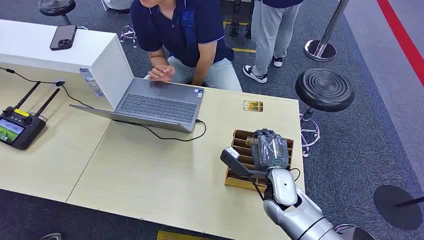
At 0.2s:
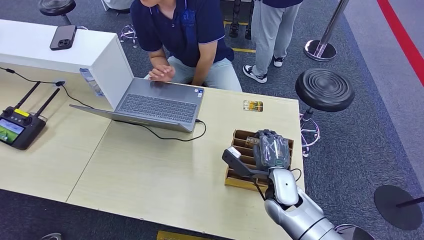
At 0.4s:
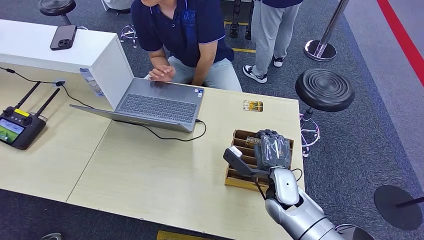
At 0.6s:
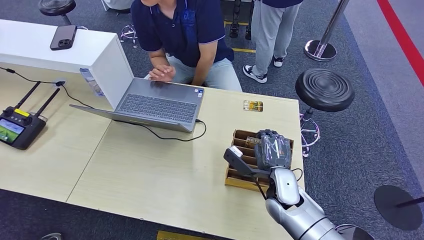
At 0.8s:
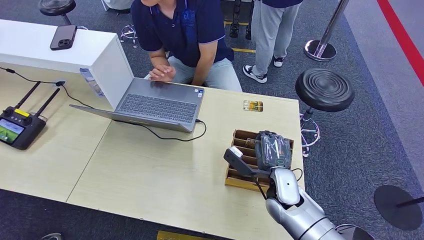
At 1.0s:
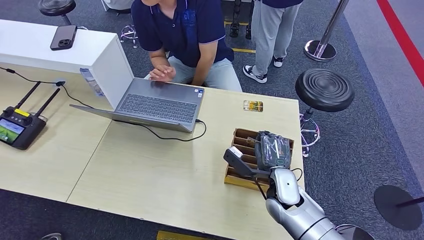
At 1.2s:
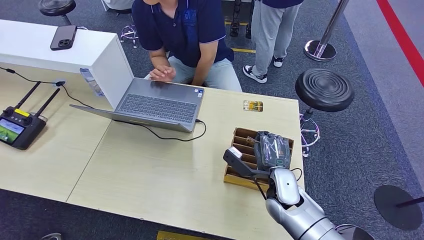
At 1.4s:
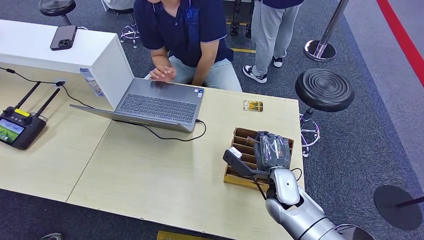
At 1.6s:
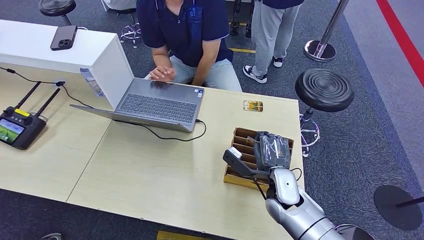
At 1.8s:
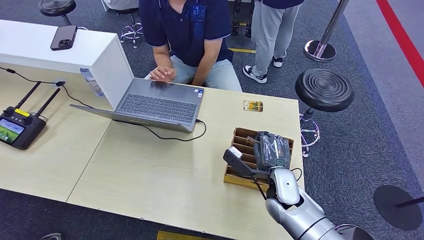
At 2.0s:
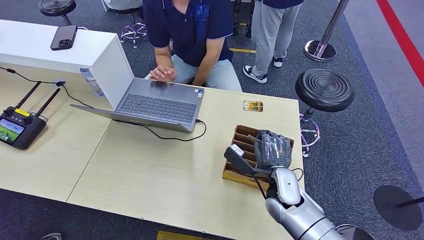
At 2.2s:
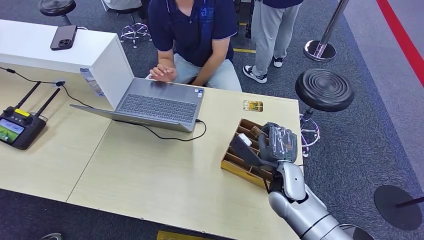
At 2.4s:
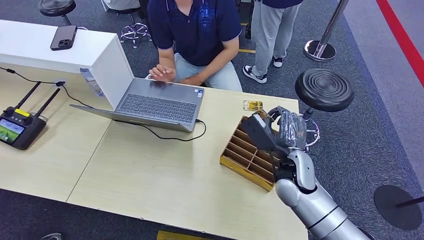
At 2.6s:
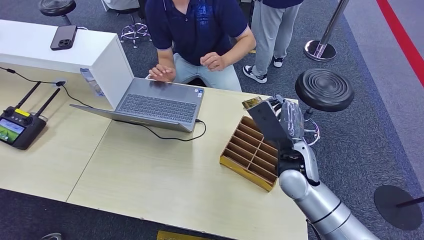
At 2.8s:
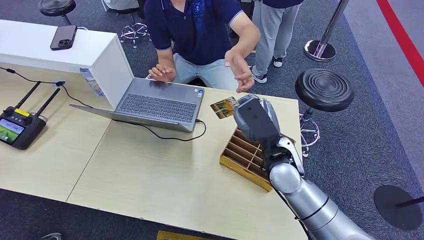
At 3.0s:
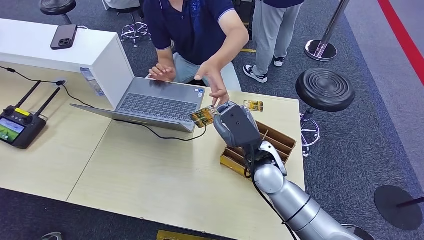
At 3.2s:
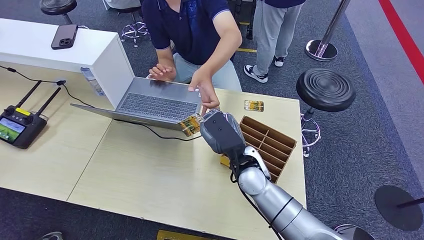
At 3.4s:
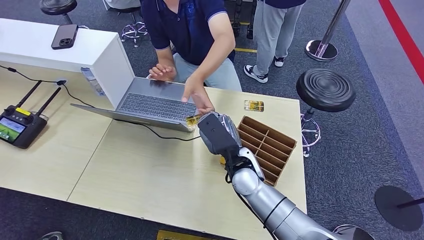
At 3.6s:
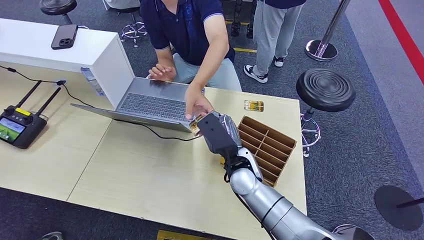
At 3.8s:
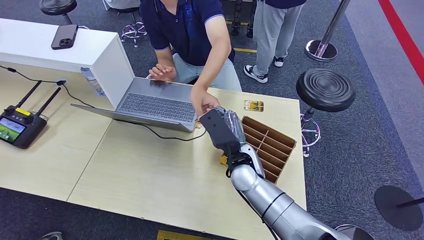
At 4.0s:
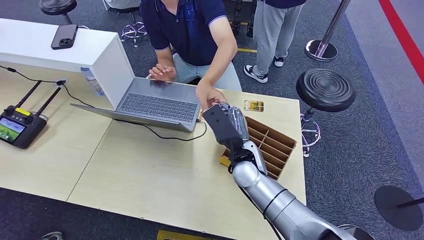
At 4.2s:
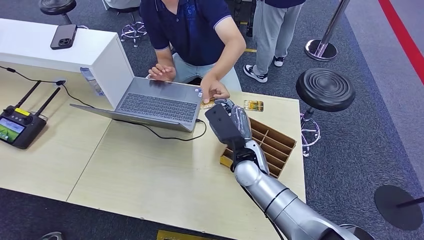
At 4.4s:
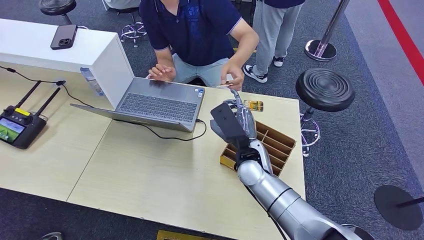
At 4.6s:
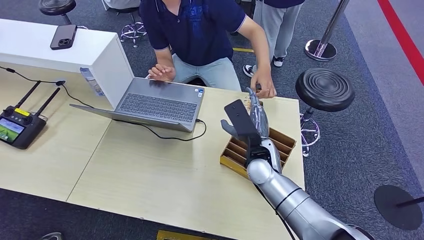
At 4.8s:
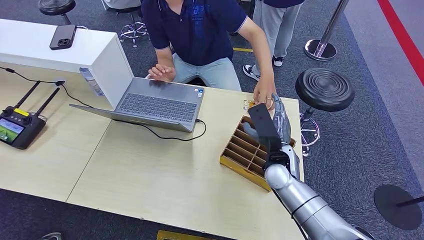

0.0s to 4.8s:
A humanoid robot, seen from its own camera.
Step, 0.0s to 2.6s: Pick up the room card from the card holder.
Step, 2.8s to 4.8s: Hand the room card to the target.
1.6s to 3.2s: The right hand goes roughly 10 cm to the left and upward.
3.2s to 4.8s: The right hand heads to the right, covering some 10 cm.

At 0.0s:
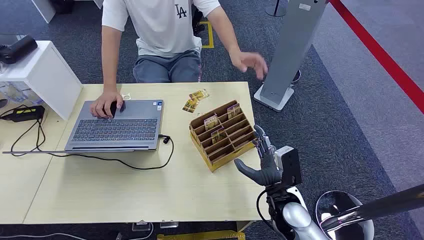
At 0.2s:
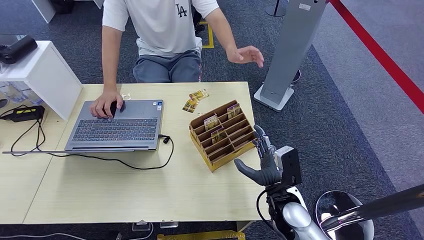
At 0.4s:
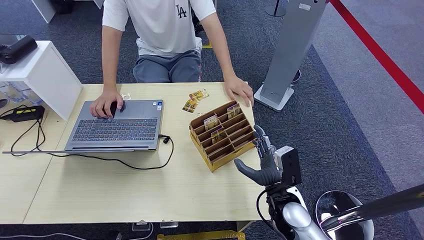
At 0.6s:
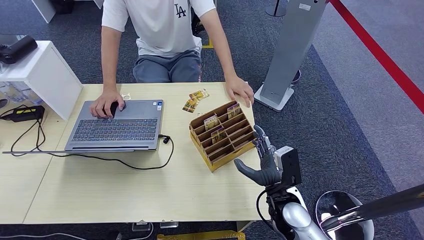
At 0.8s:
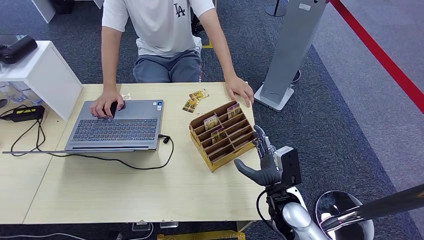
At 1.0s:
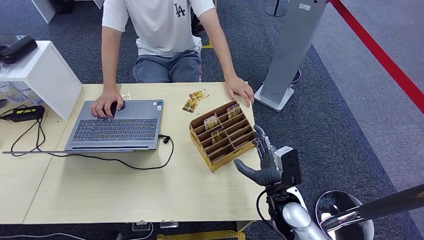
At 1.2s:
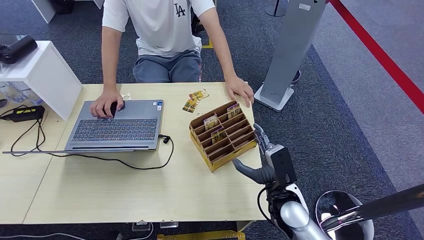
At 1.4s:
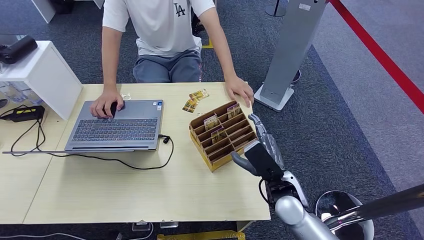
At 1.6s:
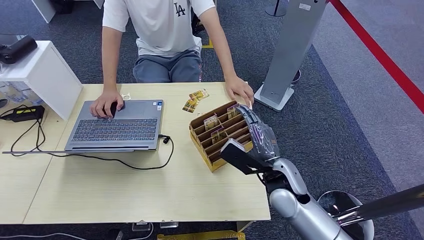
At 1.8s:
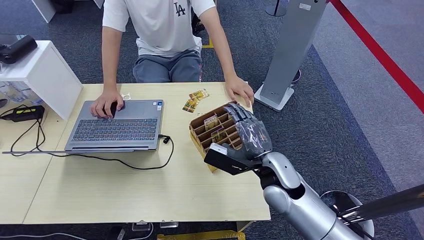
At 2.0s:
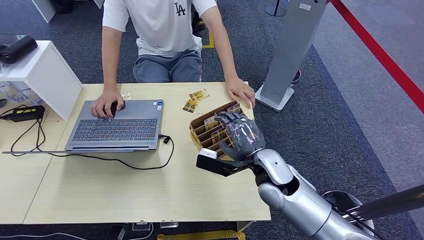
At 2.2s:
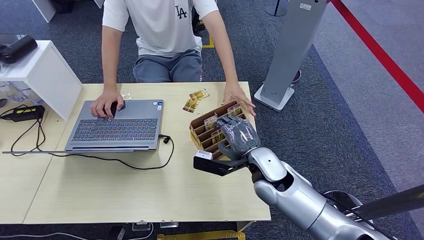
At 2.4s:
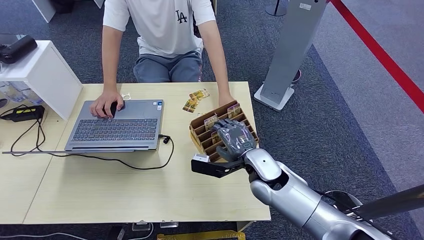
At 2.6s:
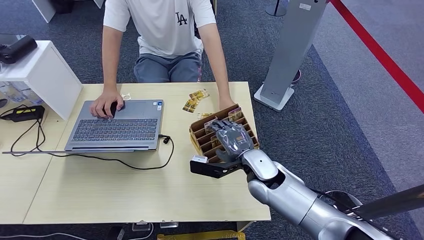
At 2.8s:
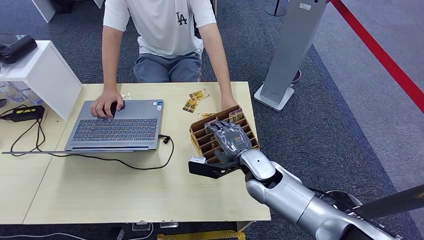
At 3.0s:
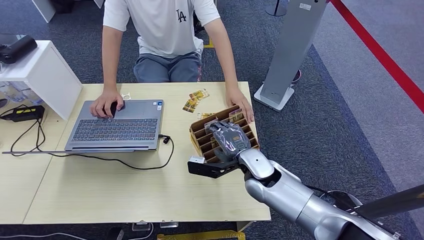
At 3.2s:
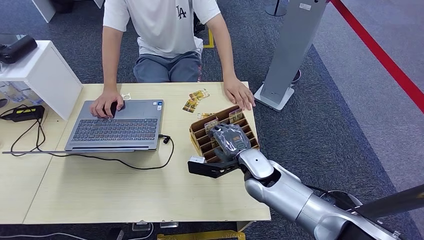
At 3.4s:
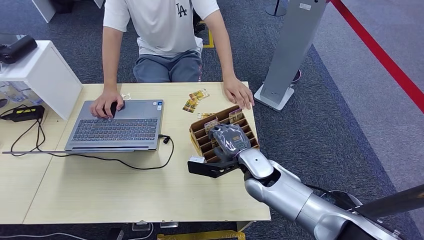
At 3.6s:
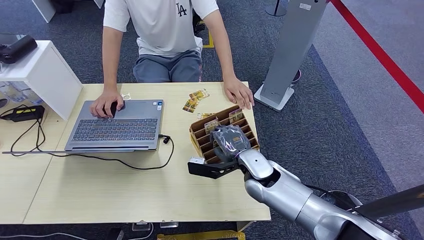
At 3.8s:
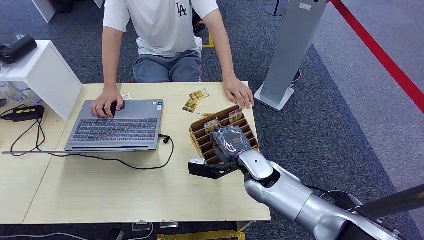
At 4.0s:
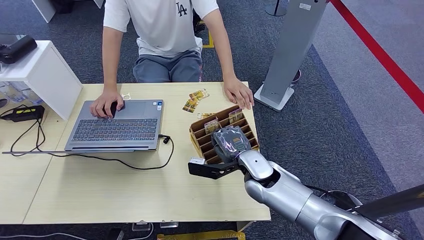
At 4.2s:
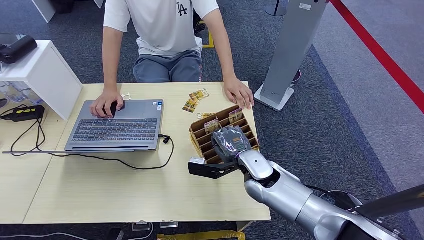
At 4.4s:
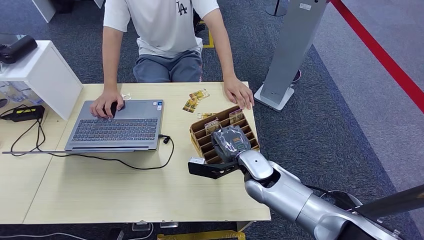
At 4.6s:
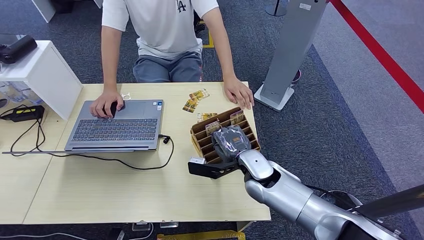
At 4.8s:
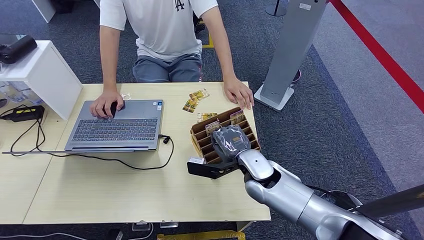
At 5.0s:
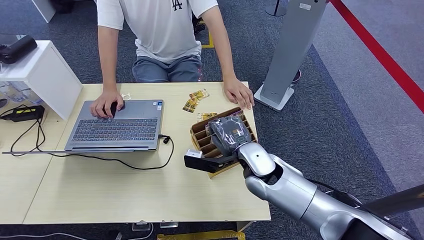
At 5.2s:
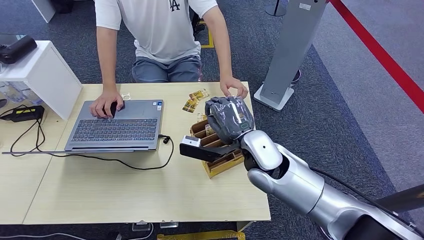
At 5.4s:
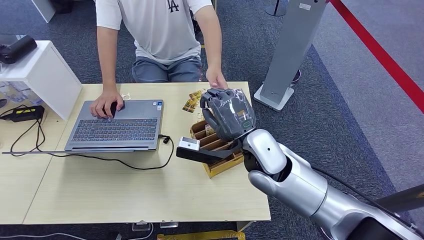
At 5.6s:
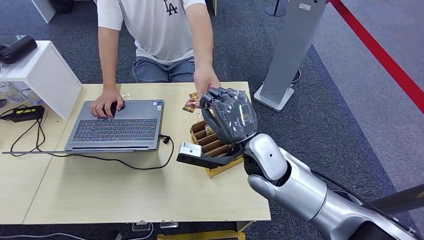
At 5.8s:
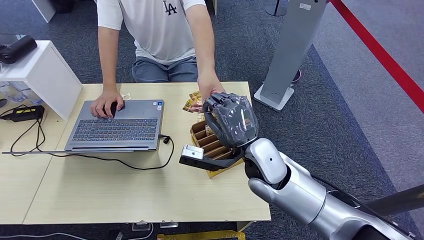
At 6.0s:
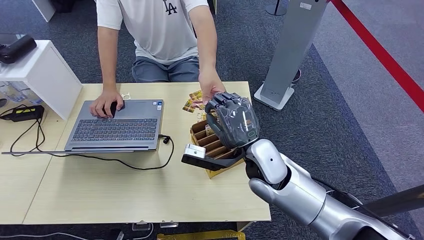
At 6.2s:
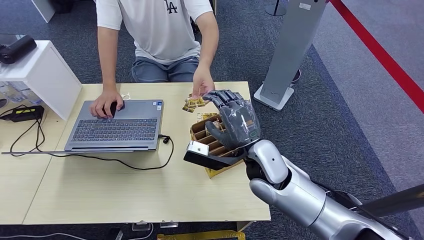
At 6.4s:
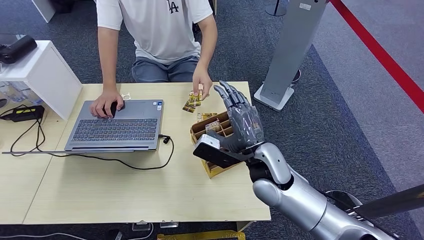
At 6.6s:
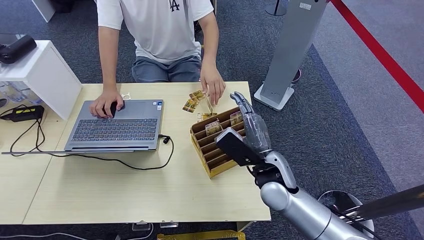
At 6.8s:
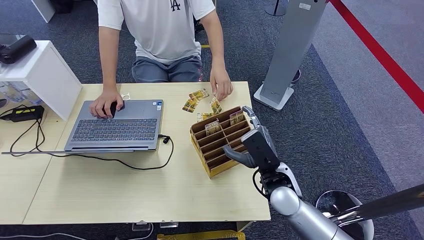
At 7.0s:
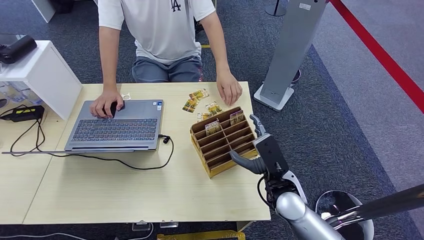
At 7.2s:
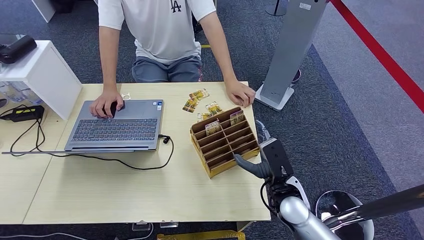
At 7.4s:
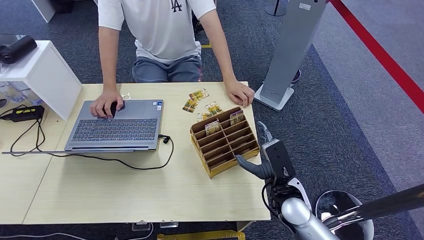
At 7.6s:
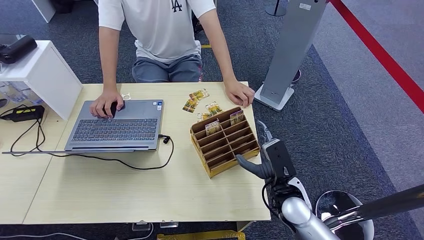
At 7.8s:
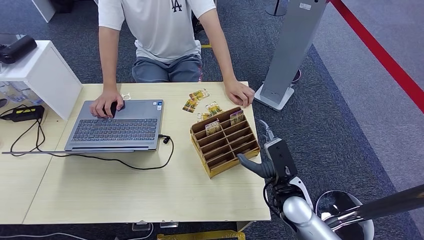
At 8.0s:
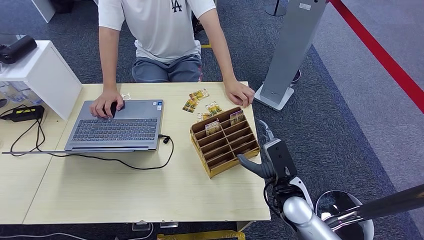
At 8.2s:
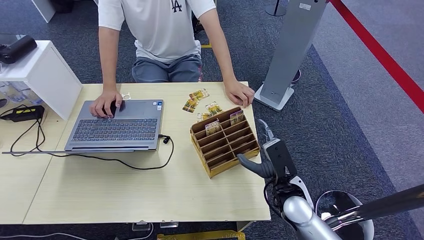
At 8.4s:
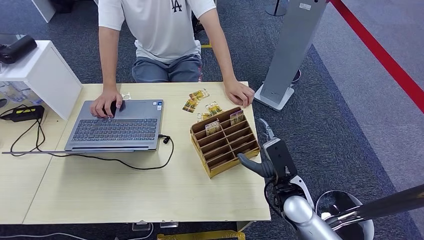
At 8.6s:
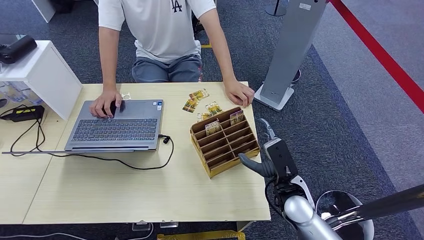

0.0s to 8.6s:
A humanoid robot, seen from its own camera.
Step, 0.0s to 4.8s: Pick up the room card from the card holder.
Step, 5.2s to 8.6s: Hand the room card to the target.
1.4s to 2.8s: The right hand shifts roughly 10 cm to the left and forward.
2.8s to 4.4s: Both hands stay put.
4.4s to 5.8s: The right hand travels upward by roughly 10 cm.
5.8s to 7.2s: The right hand moves downward and to the right, roughly 15 cm.
7.2s to 8.6s: The hands move only a little.
